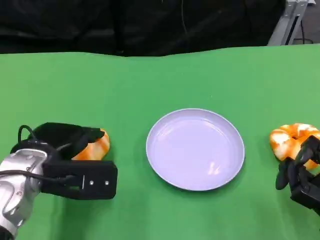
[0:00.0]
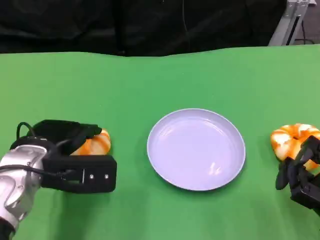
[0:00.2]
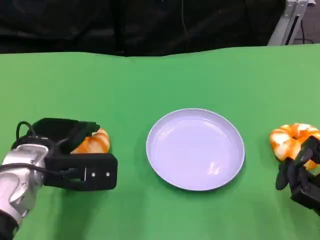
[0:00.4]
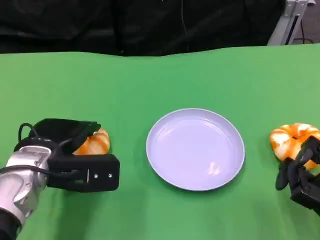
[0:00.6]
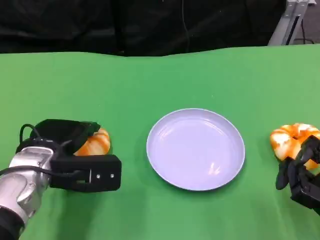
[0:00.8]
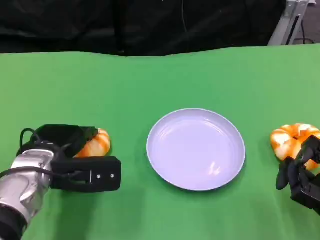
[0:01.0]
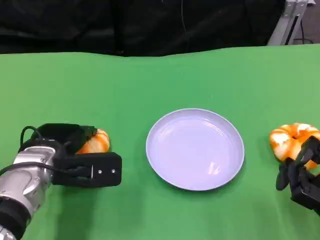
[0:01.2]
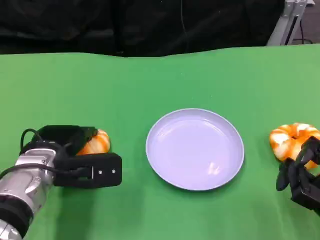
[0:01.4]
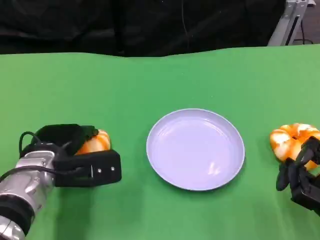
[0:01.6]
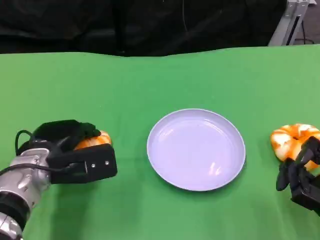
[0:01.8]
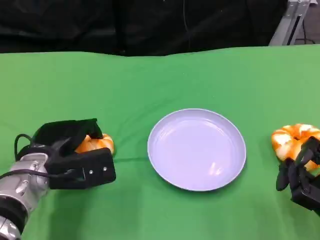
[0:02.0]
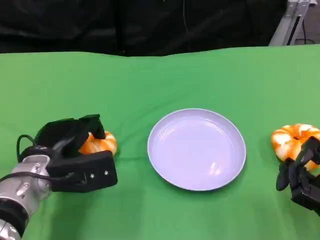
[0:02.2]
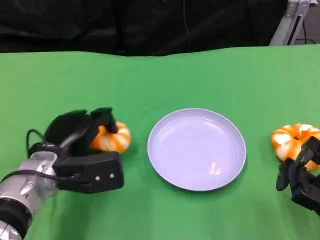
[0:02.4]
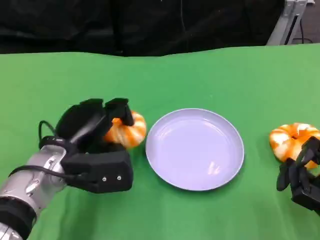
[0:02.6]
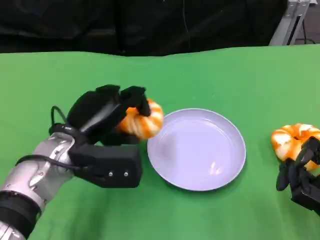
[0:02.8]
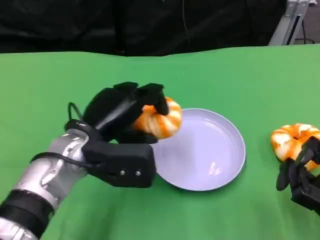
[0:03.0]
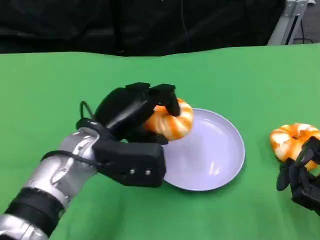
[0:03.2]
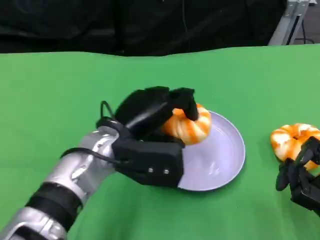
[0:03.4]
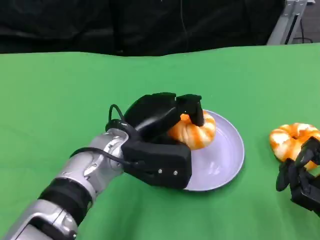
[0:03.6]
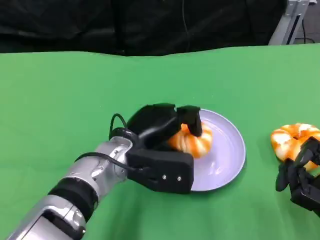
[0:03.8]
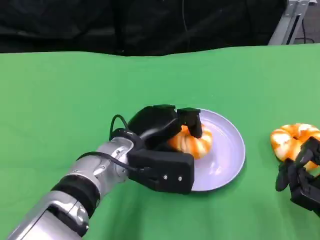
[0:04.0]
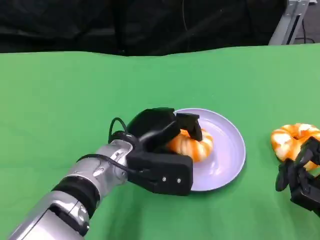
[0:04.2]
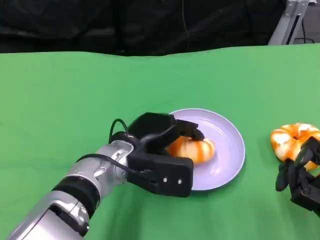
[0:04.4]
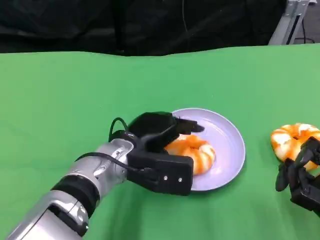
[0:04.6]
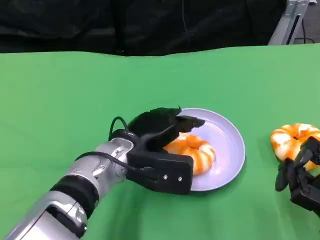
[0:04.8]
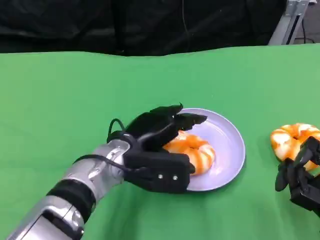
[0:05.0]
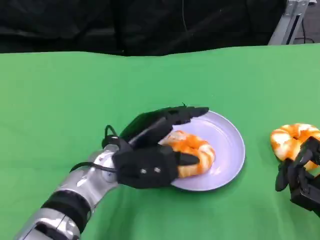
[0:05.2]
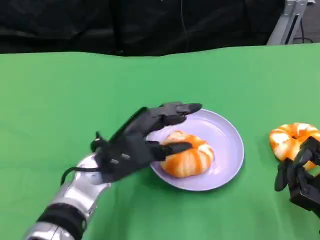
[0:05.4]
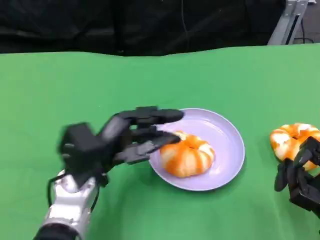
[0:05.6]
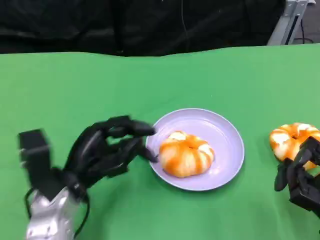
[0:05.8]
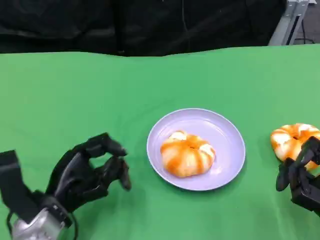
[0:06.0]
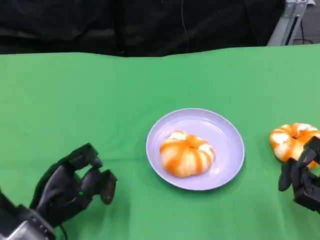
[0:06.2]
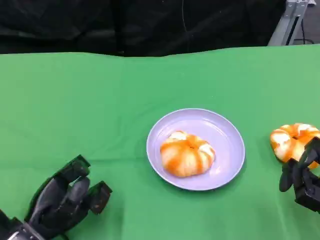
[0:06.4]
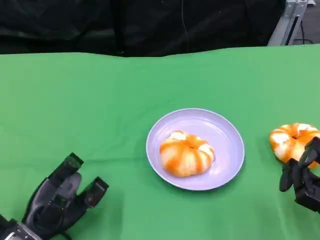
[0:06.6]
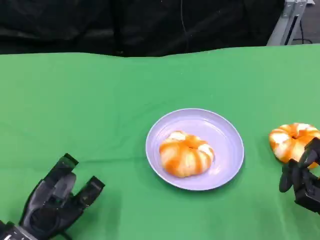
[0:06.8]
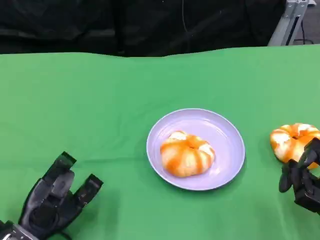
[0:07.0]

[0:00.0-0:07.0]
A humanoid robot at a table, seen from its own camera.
Task of the whole recording: Grasp the bread from the table and place it into the plate.
0:00.0 to 0:01.4: There are only small adjustments of the hands.
0:01.4 to 0:02.8: The left hand moves roughly 5 cm.
0:02.8 to 0:04.2: The left hand moves to the right, some 5 cm.
0:04.2 to 0:05.6: The left hand goes some 5 cm to the left.
0:05.6 to 0:07.0: The left hand is displaced to the left, downward and backward by approximately 15 cm.

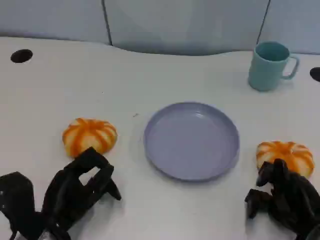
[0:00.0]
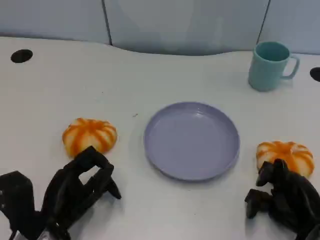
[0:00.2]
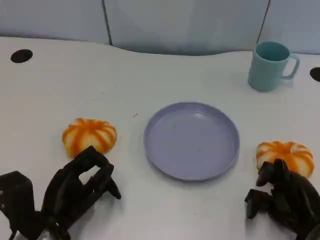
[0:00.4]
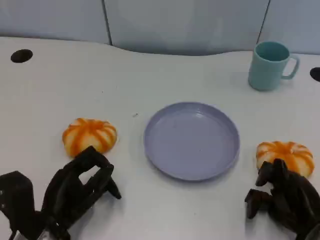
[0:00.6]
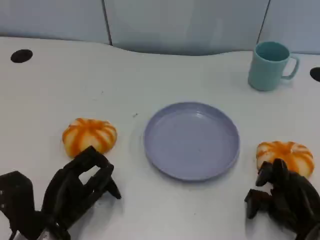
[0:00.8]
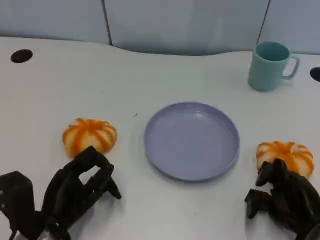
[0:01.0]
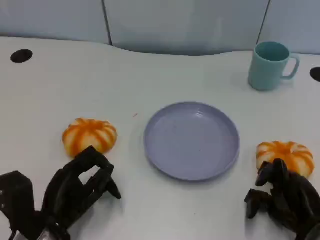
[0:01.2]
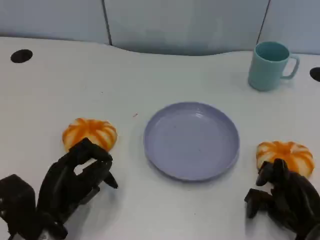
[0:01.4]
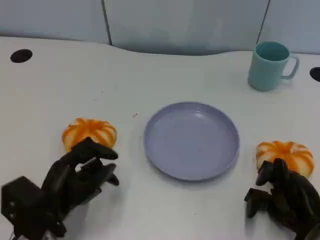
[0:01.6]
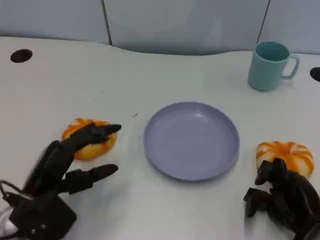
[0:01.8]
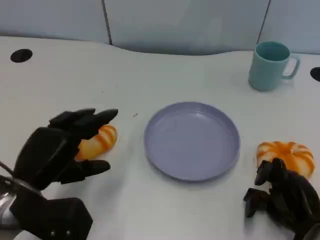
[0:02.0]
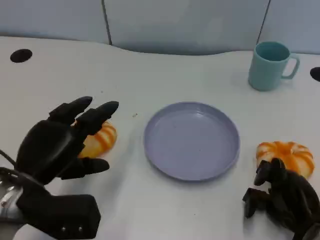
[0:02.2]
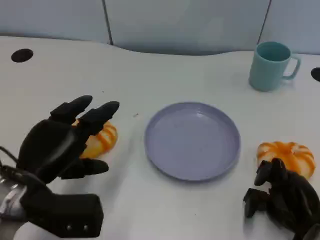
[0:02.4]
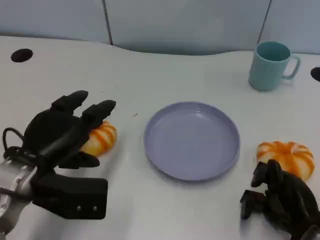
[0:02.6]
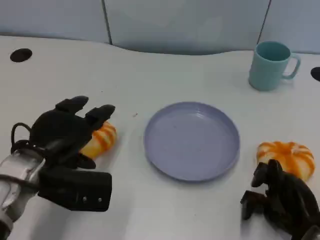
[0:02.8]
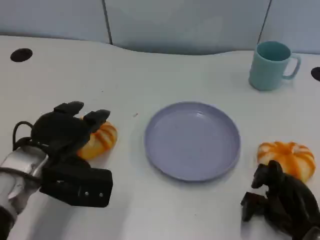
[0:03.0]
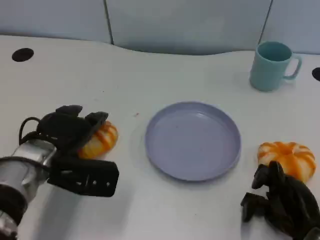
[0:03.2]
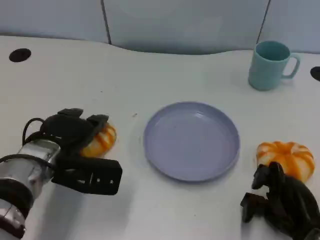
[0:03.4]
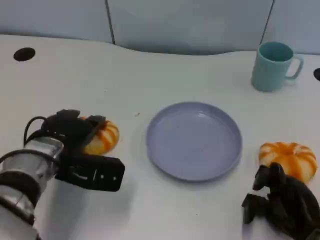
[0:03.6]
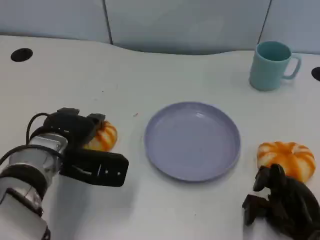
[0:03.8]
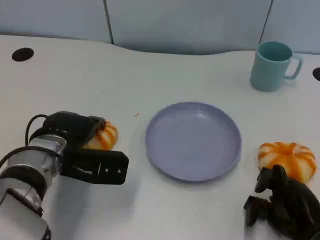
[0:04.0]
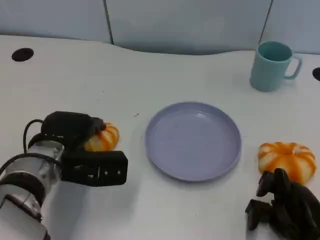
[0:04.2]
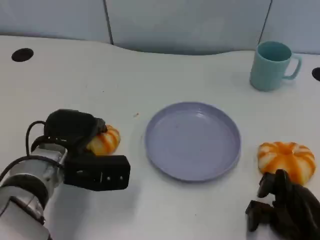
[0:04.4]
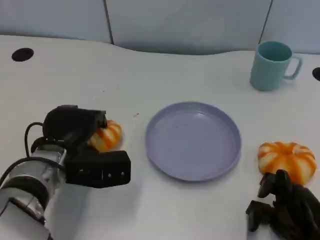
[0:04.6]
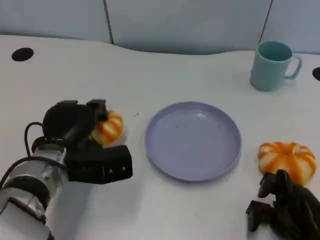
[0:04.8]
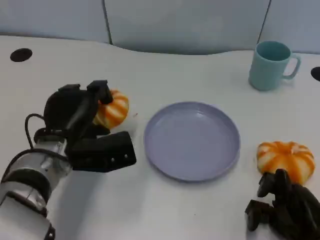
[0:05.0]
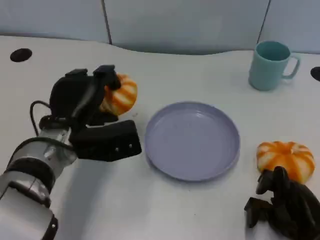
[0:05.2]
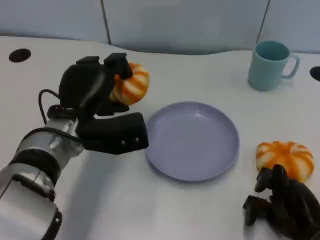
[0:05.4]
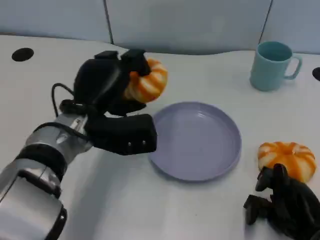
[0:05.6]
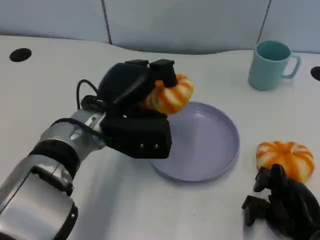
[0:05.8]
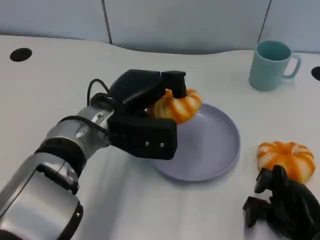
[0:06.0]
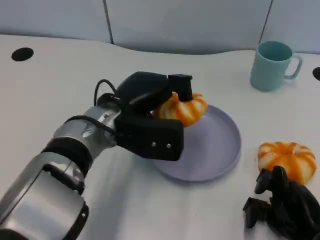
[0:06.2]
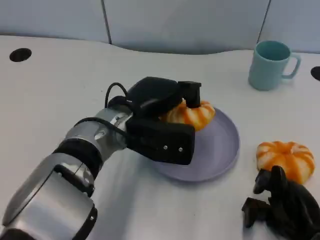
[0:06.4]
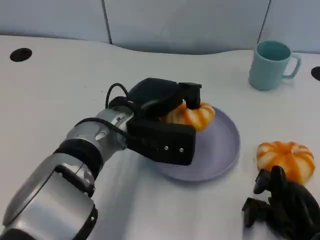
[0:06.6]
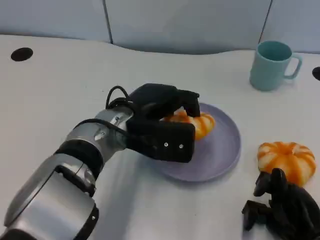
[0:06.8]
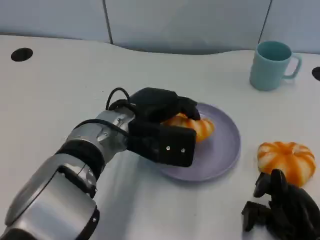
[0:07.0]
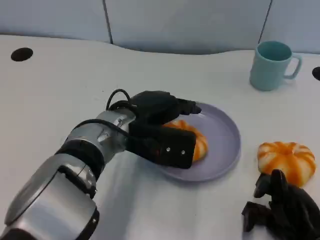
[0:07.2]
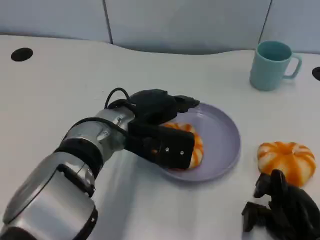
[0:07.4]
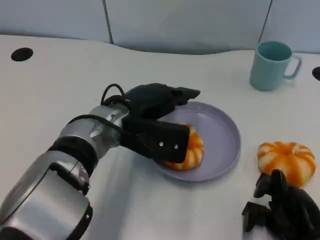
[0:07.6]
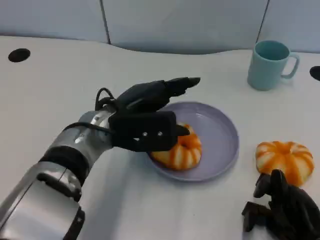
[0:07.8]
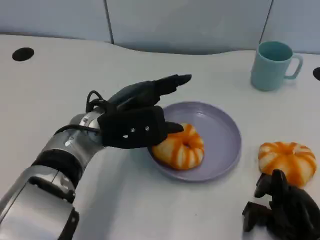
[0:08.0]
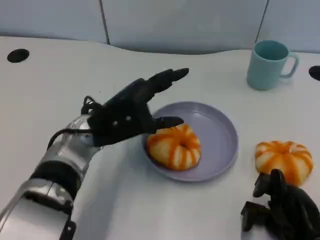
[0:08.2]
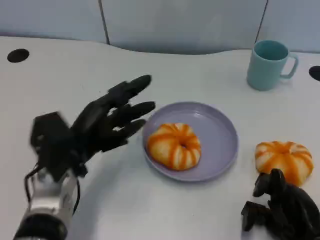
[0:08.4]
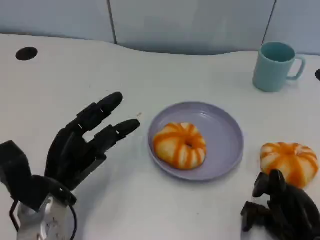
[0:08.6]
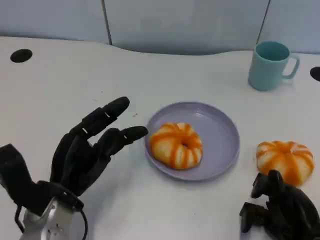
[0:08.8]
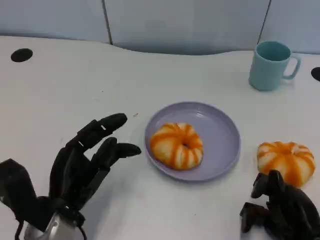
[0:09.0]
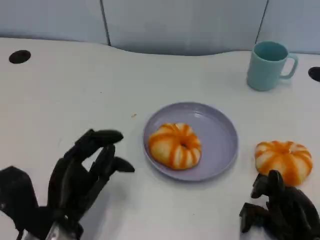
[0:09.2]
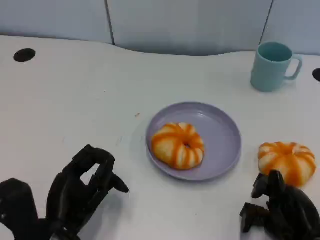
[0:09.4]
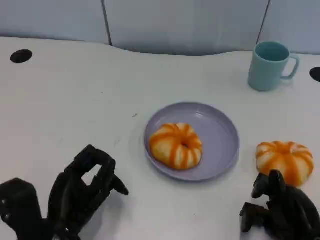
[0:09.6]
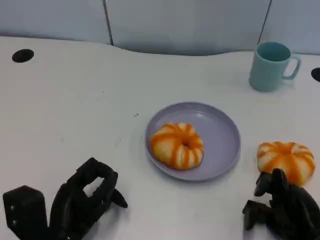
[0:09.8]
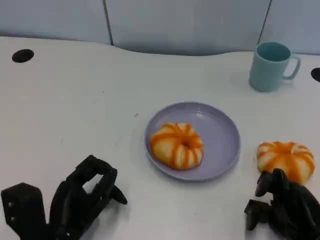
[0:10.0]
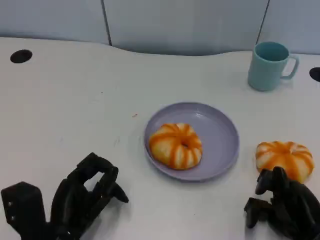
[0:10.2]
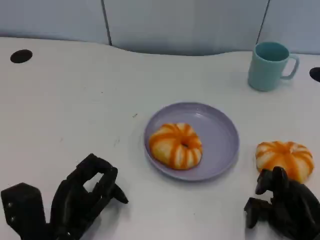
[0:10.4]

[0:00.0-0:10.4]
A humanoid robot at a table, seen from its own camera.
Task of the whole recording: Grasp the bread from the table and place it into the plate.
0:00.0 to 0:01.4: The hands stay close to where they were, moving slightly.
0:01.4 to 0:03.0: The left hand goes approximately 10 cm forward and upward.
0:03.0 to 0:04.4: There are only small adjustments of the hands.
0:04.4 to 0:06.0: The left hand travels to the right and upward by some 10 cm.
0:07.4 to 0:09.0: The left hand shifts about 15 cm backward, to the left and downward.
0:09.0 to 0:10.4: The hands make only small movements.

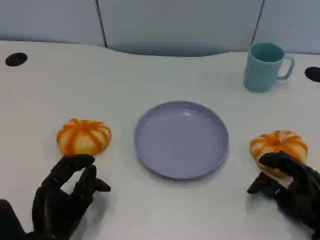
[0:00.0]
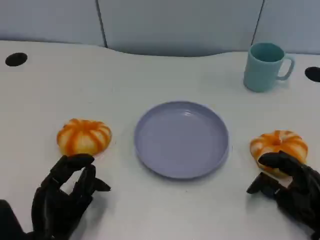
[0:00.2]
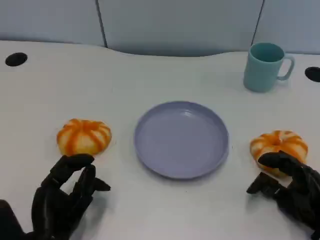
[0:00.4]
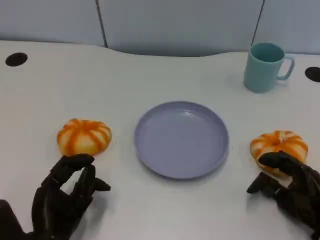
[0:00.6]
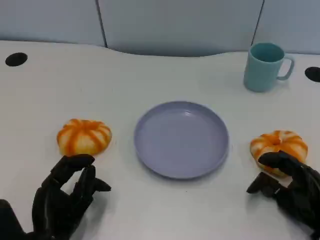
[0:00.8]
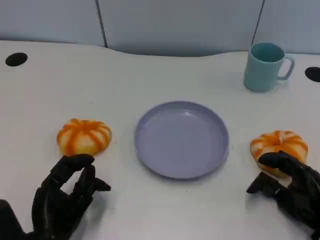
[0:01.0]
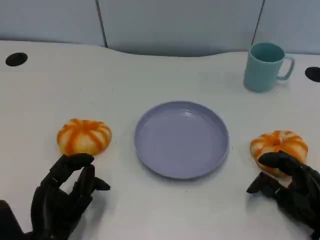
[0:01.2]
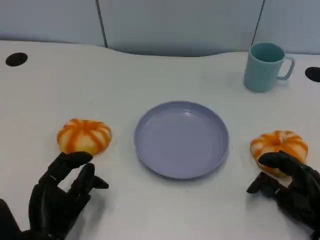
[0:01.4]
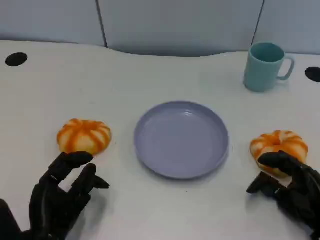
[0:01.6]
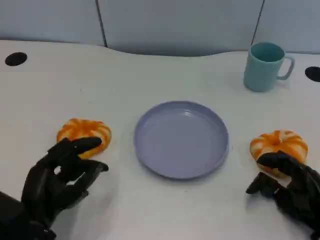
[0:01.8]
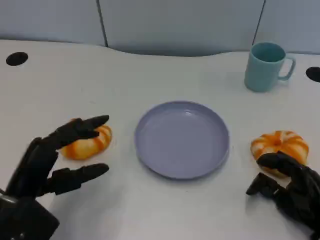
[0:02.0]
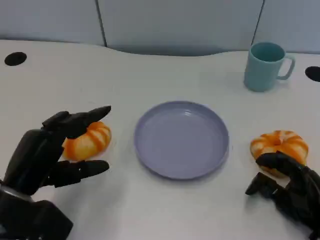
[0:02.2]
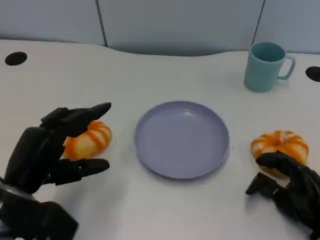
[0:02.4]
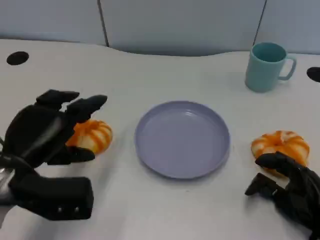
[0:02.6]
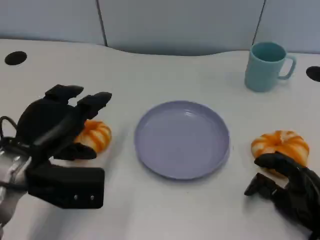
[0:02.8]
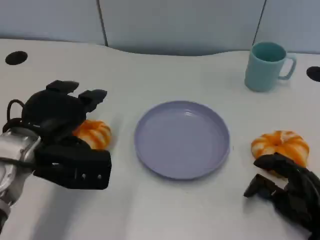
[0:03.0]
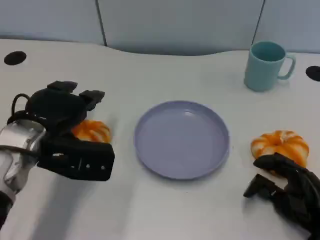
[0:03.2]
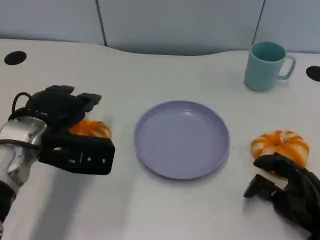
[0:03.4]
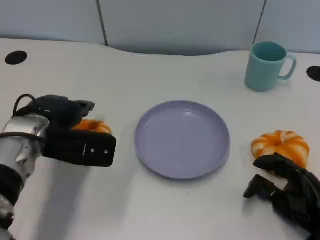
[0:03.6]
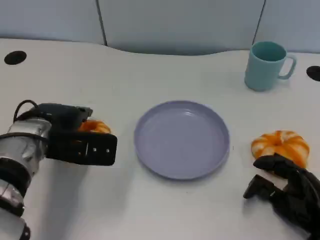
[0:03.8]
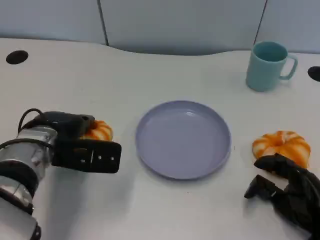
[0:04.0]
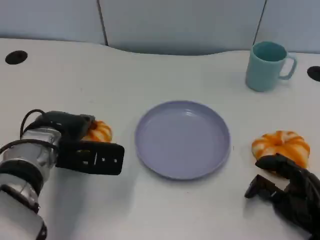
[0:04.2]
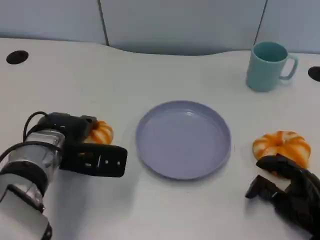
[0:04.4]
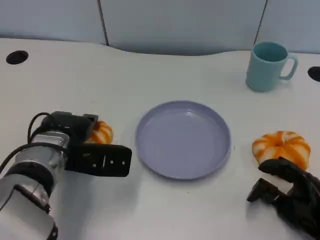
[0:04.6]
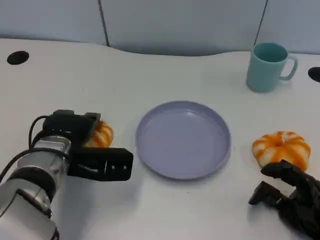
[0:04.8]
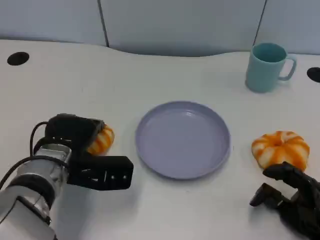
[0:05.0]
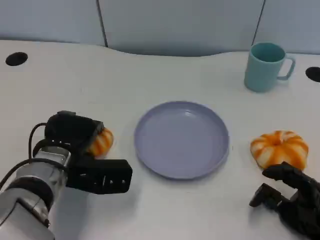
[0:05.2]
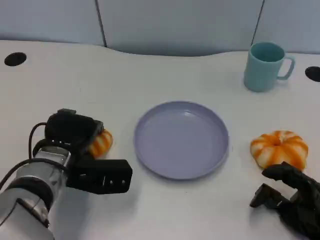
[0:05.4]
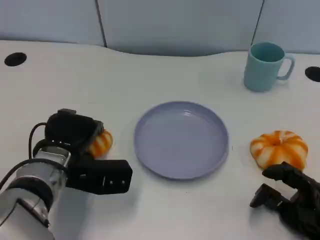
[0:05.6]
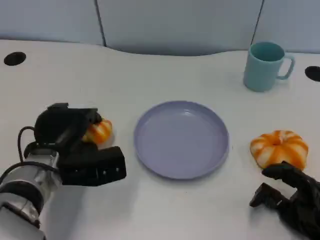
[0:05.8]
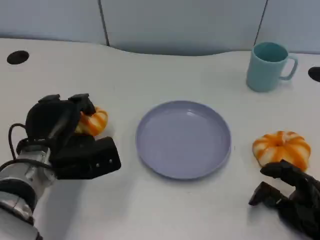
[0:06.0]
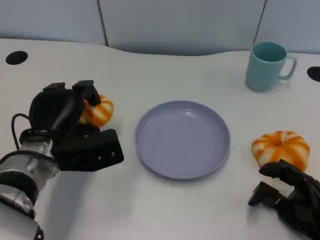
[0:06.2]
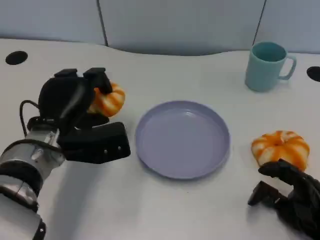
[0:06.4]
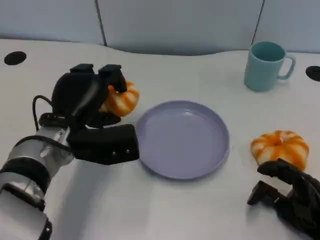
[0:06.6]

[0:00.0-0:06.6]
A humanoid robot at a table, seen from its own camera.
Task of the whole recording: Grasp the bread from the table and place it into the plate.
0:00.0 to 0:01.6: Both hands stay about where they are.
0:01.6 to 0:03.2: The left hand travels forward and upward by about 15 cm.
0:03.2 to 0:05.0: The left hand shifts some 5 cm downward.
